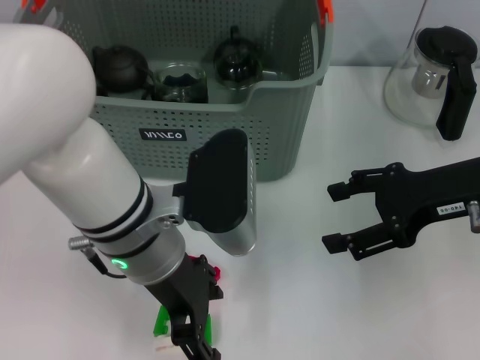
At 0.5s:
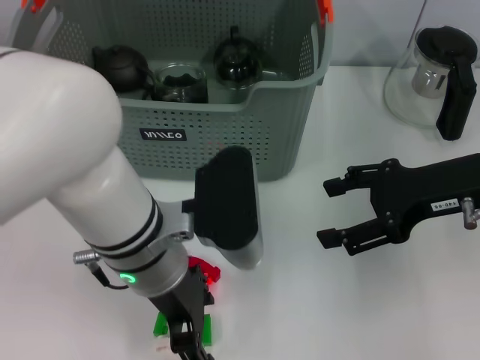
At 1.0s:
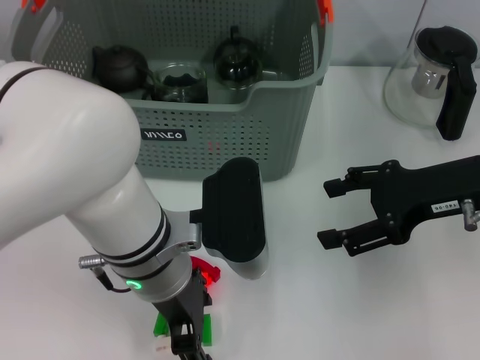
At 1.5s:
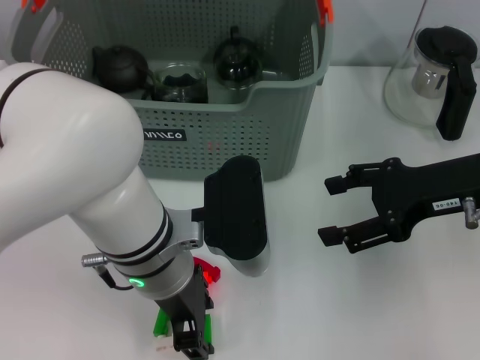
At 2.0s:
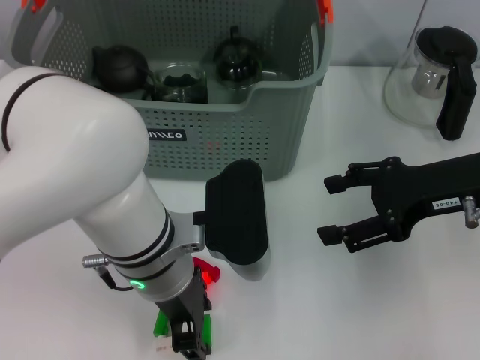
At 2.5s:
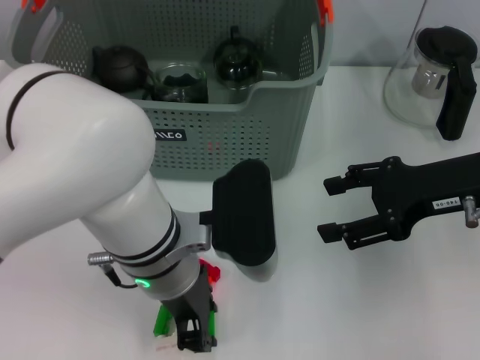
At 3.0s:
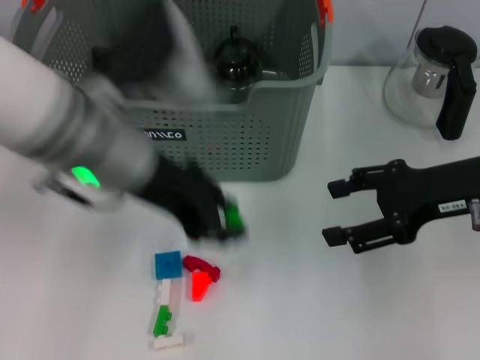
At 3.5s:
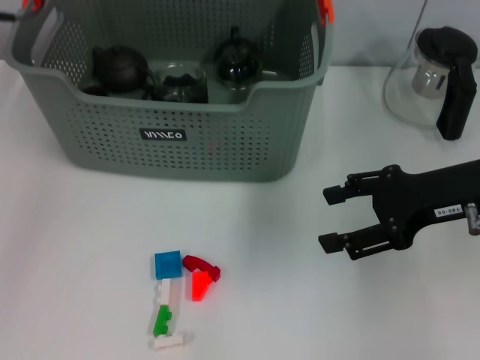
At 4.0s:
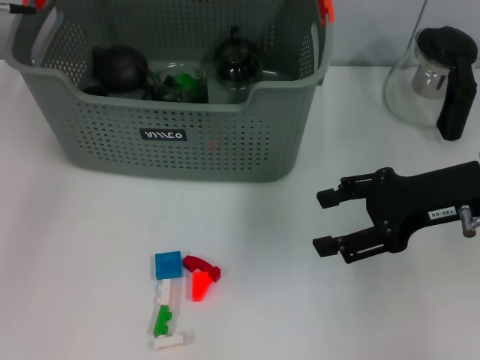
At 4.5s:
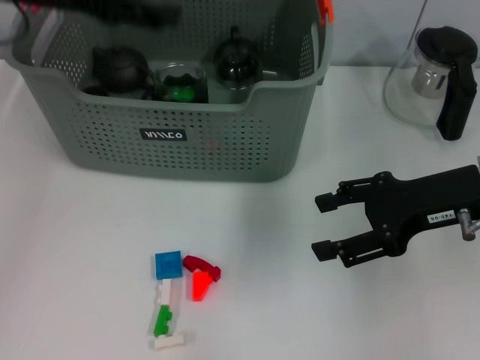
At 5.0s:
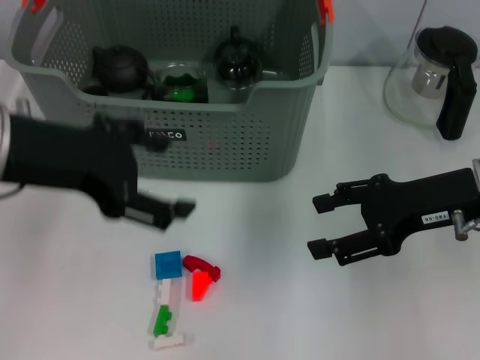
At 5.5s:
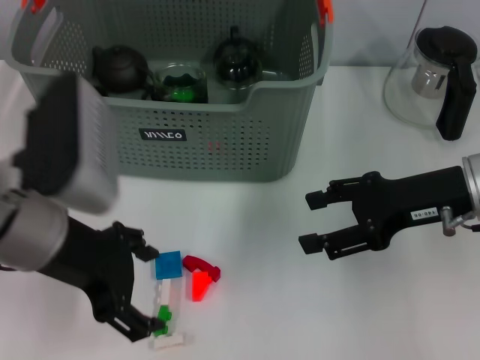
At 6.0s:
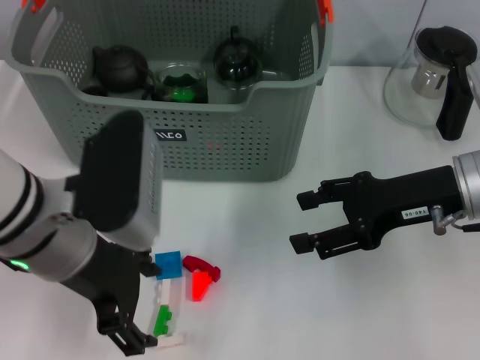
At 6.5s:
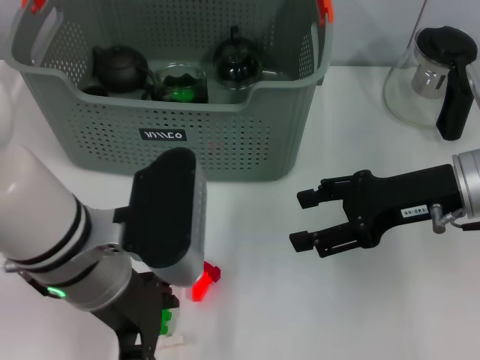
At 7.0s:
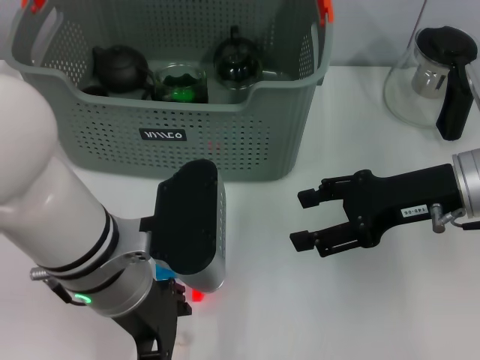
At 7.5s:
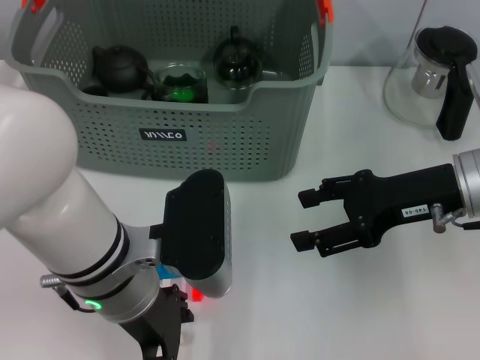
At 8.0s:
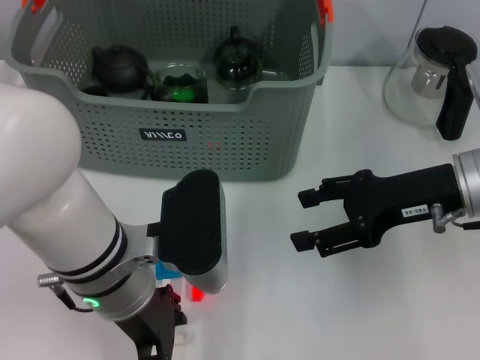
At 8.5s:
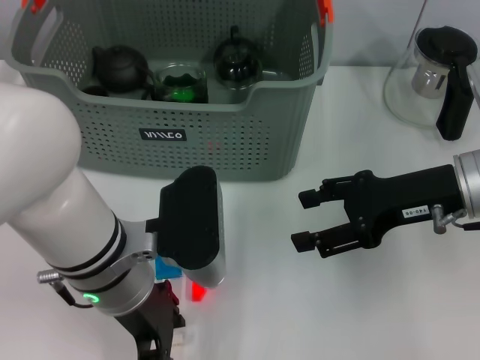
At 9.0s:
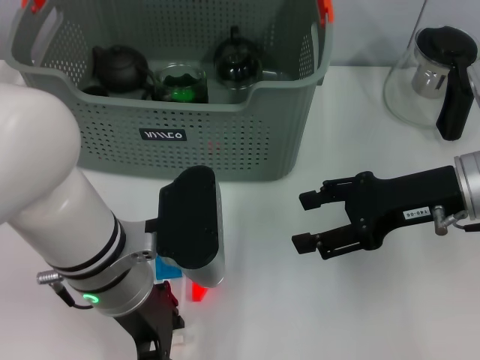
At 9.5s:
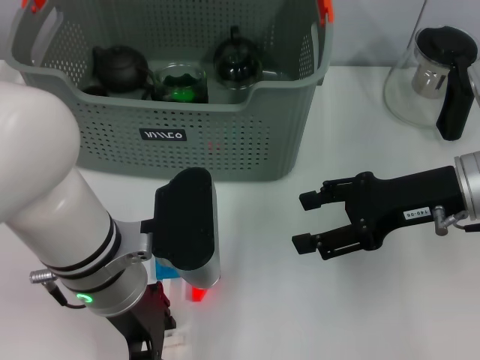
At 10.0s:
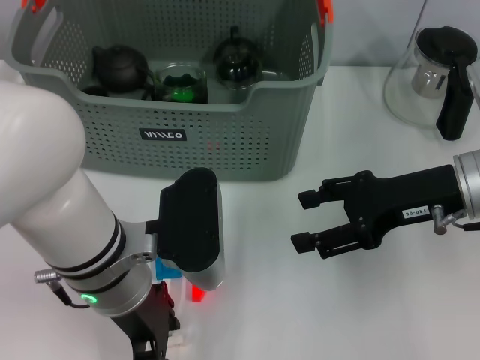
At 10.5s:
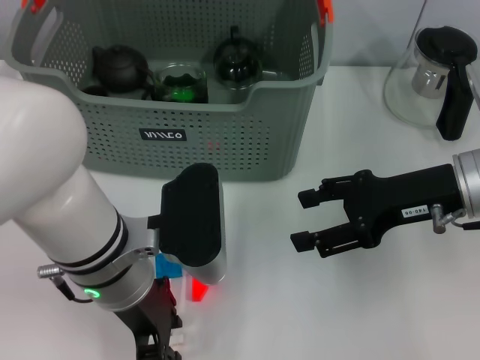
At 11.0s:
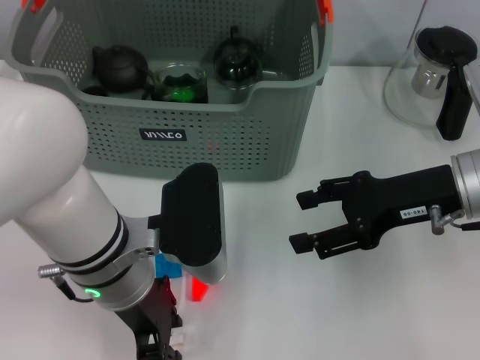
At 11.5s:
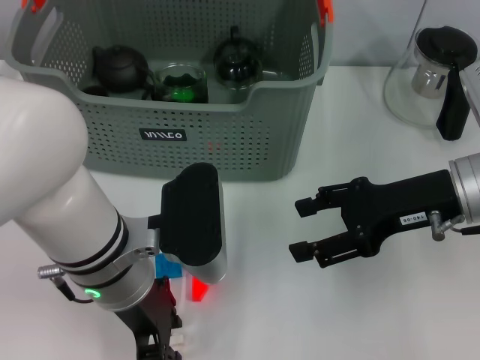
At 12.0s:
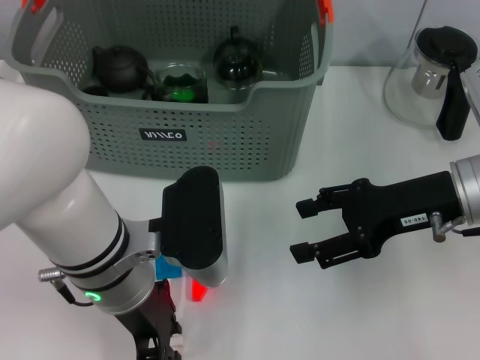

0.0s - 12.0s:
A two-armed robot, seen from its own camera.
Task of the whole recording: pick up the teacup on the table and place it into the storage bin, pick up the block on the table and place it into the storage bin.
Step, 0.0s - 2.0s: Grasp the green block with left gripper.
Step, 2.5s - 4.0s: Place the green block in the storage box with left gripper.
2.0s - 4.0s: The left gripper heads forward, to the left and upward, covering approximately 25 cm.
4.0s - 6.0s: The left gripper goes some 20 cm backward and downward, and opens its fingers.
6.0s - 8.0s: The left gripper moves some 5 cm.
8.0s - 12.0s: Both grippers stay put.

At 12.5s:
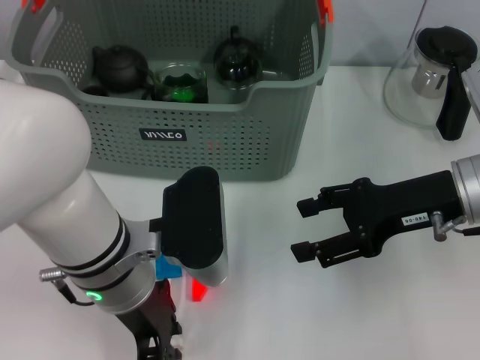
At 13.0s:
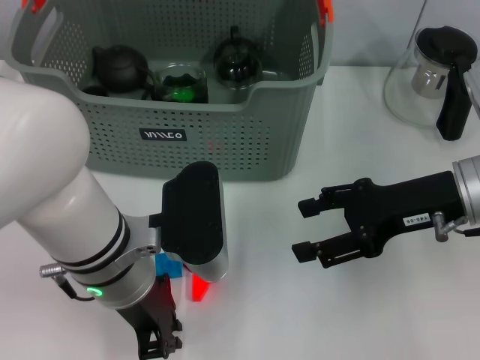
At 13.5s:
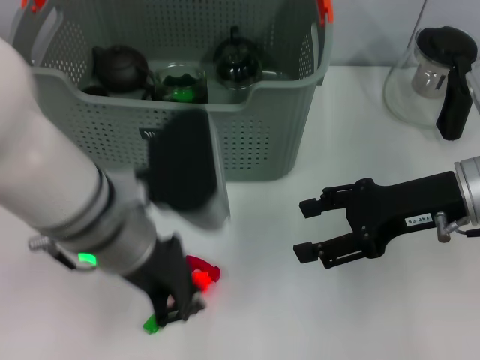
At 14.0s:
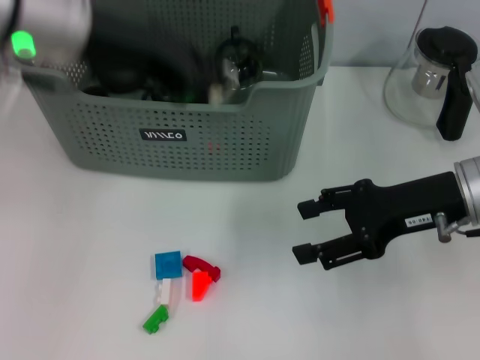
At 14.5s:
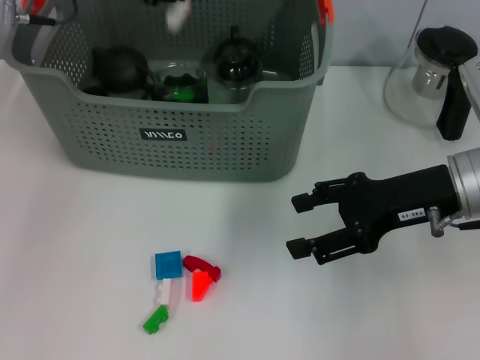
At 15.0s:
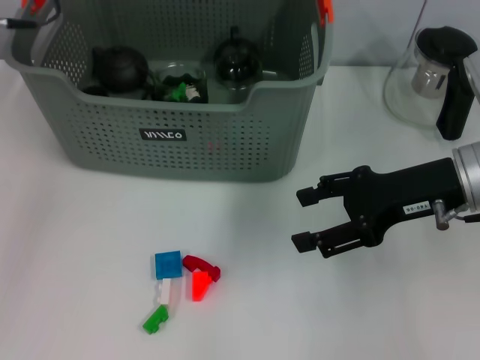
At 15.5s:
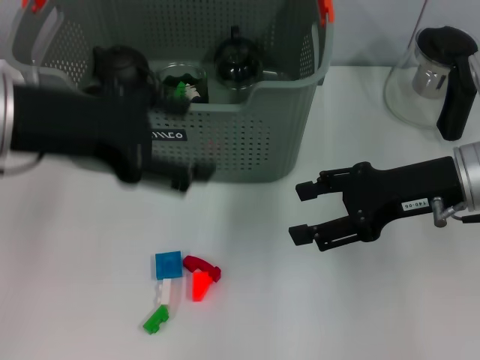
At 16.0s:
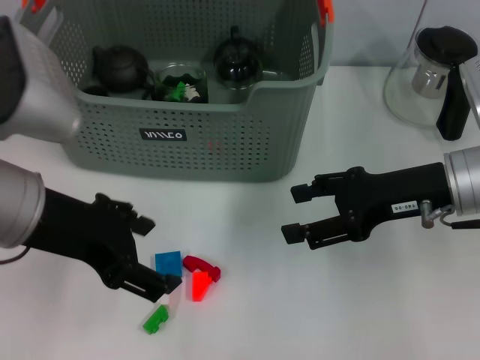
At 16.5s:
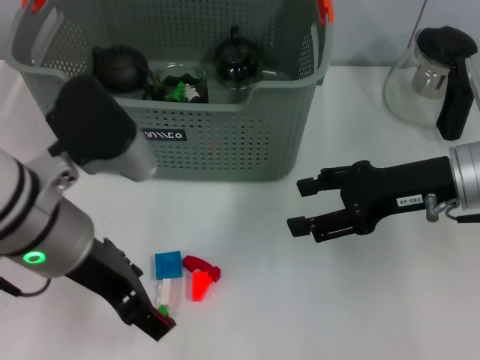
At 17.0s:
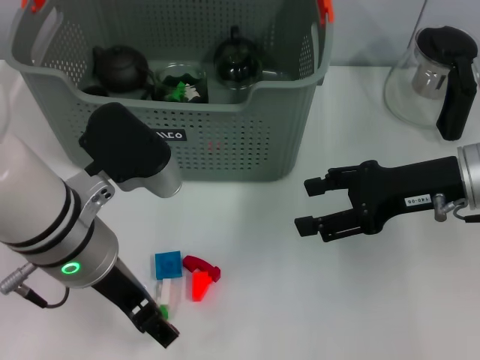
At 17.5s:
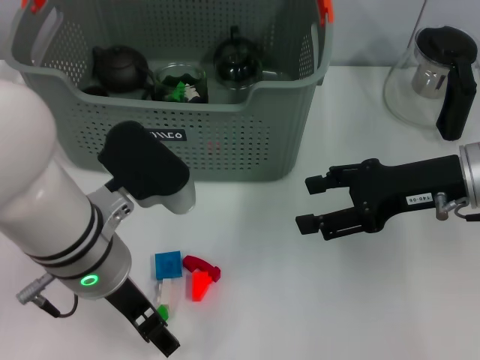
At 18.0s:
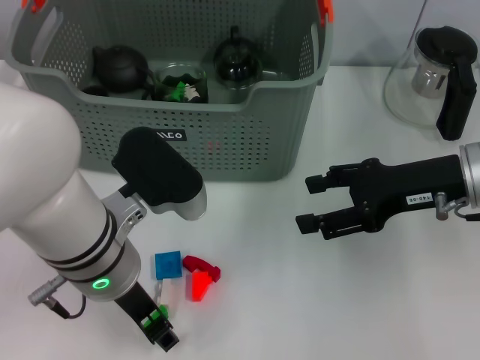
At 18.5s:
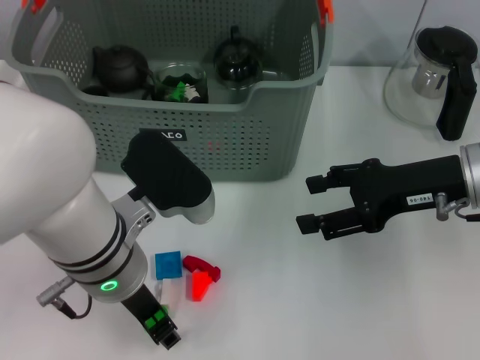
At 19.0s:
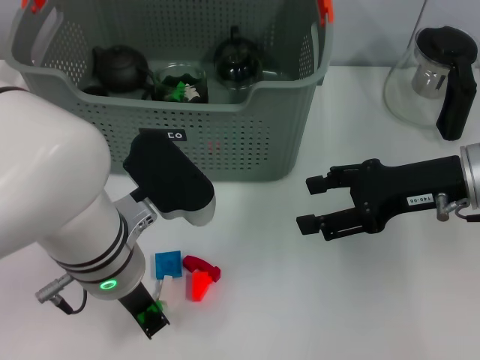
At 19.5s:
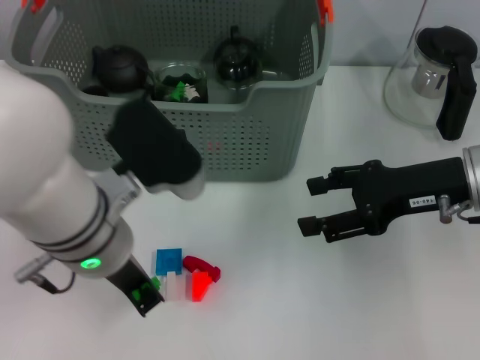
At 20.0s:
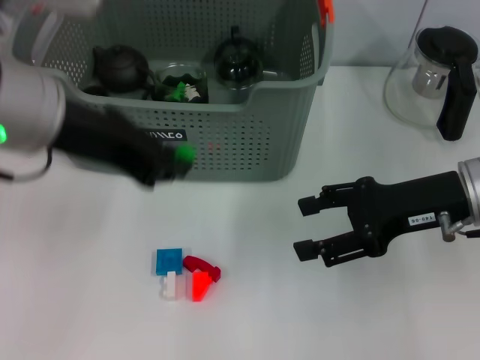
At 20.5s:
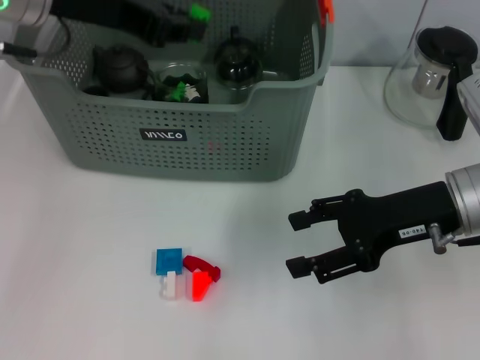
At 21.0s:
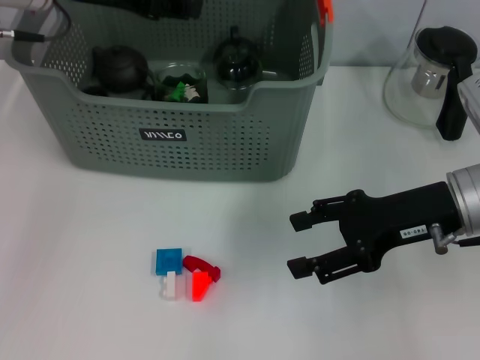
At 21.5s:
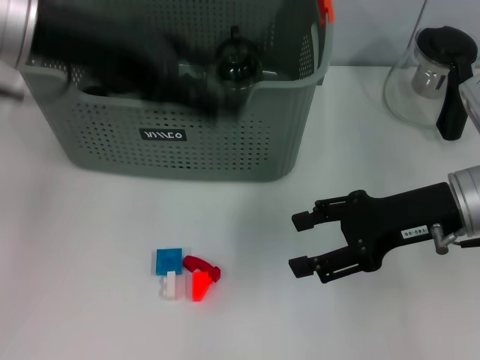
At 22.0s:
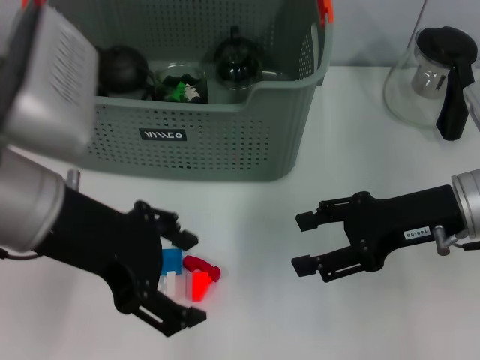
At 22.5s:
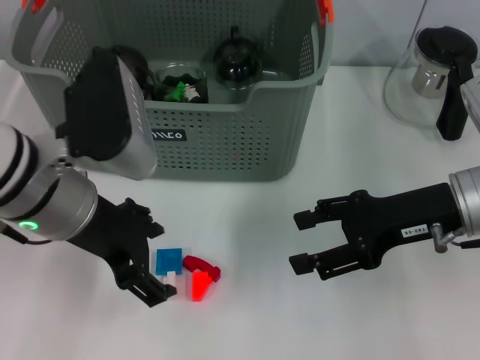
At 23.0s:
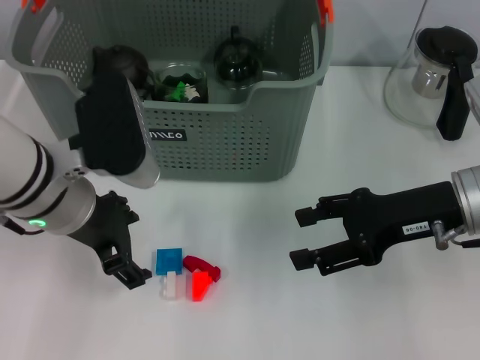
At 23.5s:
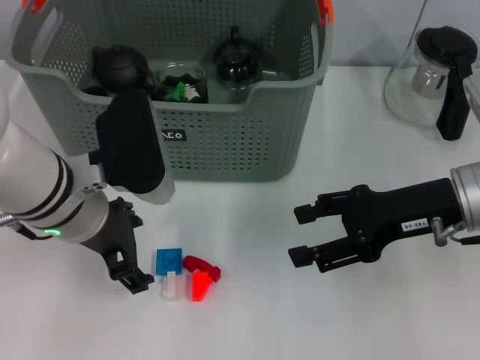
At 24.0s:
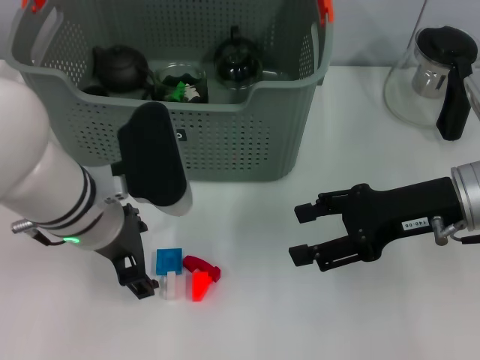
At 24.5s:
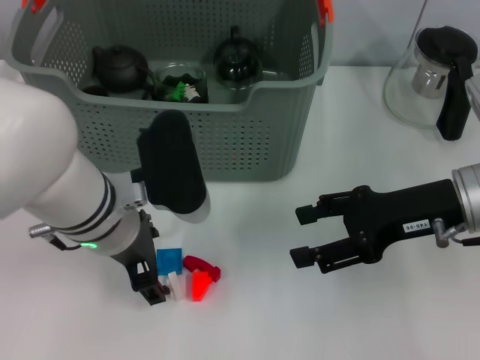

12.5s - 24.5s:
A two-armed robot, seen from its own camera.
Task of the whole recording: pick up the teacup on the table and place it into the storage bin, pick up the block on the table and place it into the storage bin.
Step, 13.5s - 14.5s: Place the white block in the storage box with left gripper.
Step, 15.0s - 19.0s: Grasp the green block with left gripper.
Step, 19.5s - 20.5s: Place the green block in the storage box with left gripper.
12.5s - 14.5s: The left gripper travels forward, upward and to the left by some 25 cm.
14.5s - 16.5s: The left gripper moves backward and downward, some 20 cm, and opens its fingers.
16.5s - 18.5s: The left gripper travels downward by roughly 5 cm, and closes up.
18.5s - 20.5s: The left gripper heads upward, forward and to the left, covering approximately 20 cm, and closes.
20.5s - 22.5s: The left gripper goes roughly 15 cm downward and backward, and opens its fingers.
22.5s - 24.5s: The left gripper is displaced downward by roughly 5 cm.

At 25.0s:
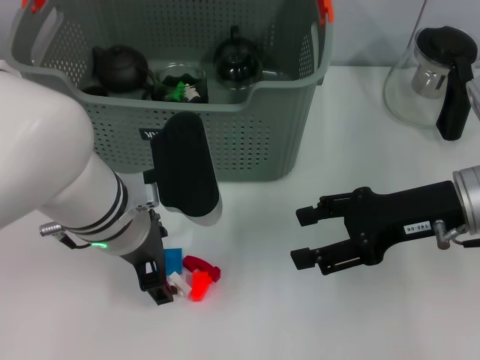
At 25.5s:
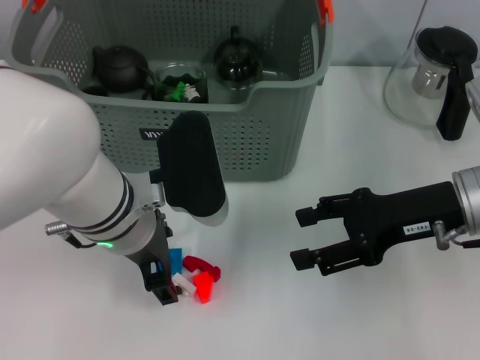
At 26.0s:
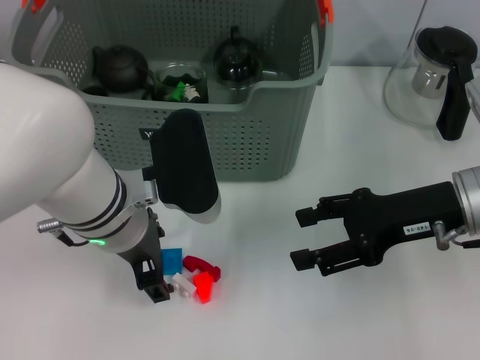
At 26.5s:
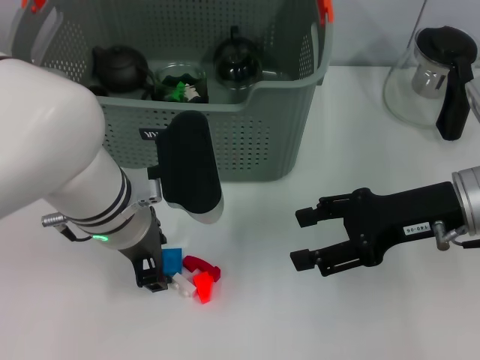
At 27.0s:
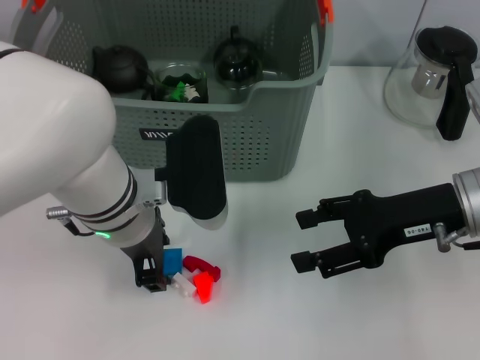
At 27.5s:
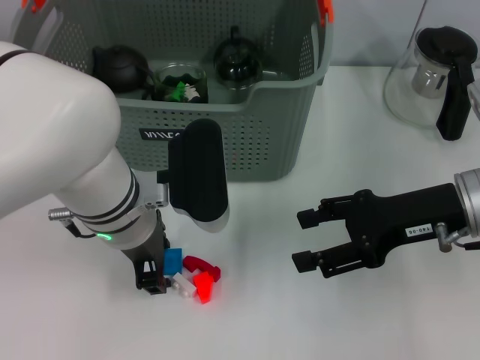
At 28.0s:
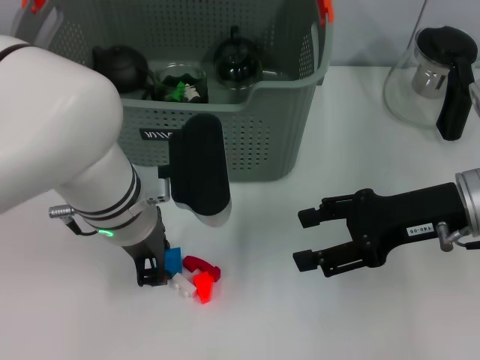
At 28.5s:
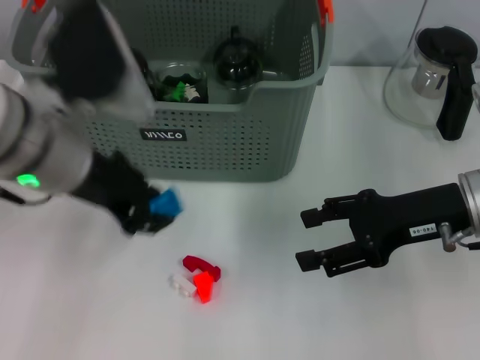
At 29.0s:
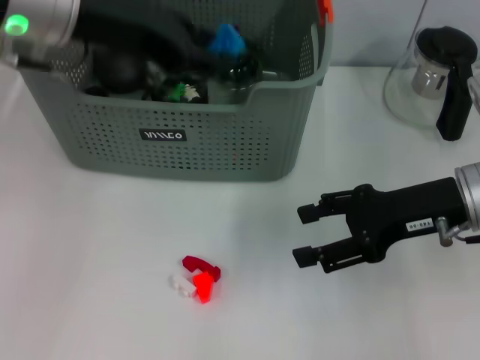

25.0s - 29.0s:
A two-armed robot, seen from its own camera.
Task of the whole recording: pick up the teacup on the table and place it into the storage bin, pick up the block on the table and place it into the storage bin.
Step, 25.0s - 27.5s: Grasp the dark blue block with left gripper.
25.0s - 27.0s: There are only small adjustments of the grippers.
27.0s - 29.0s: The left gripper is displaced upward and to the left by approximately 15 cm.
